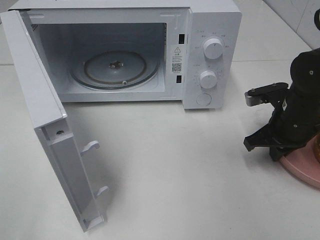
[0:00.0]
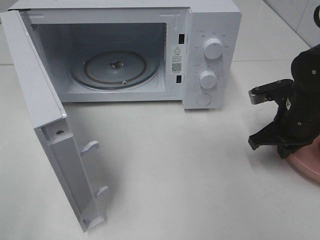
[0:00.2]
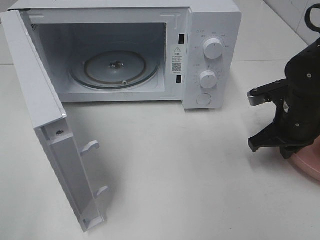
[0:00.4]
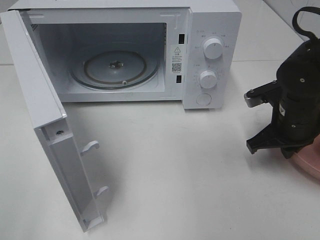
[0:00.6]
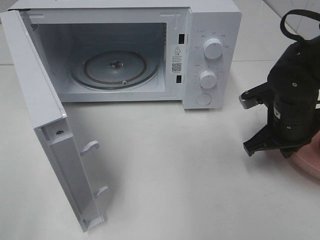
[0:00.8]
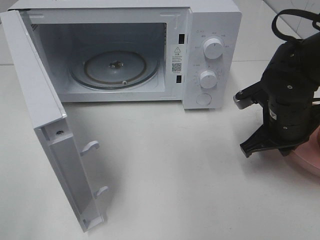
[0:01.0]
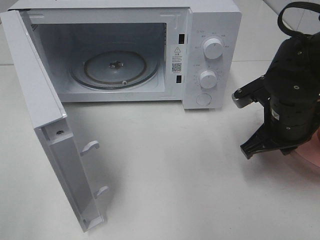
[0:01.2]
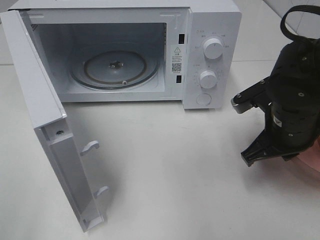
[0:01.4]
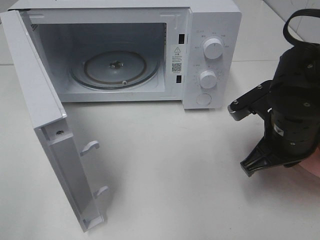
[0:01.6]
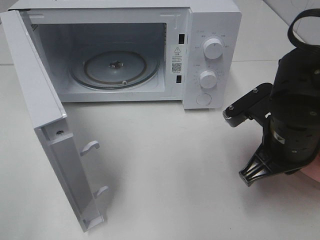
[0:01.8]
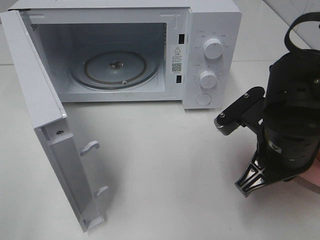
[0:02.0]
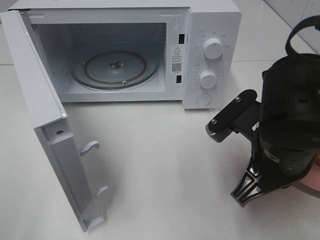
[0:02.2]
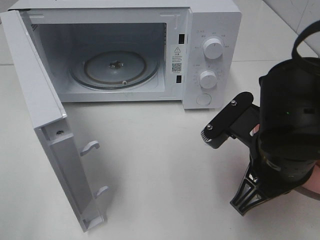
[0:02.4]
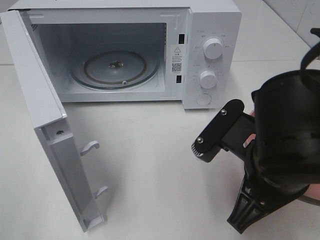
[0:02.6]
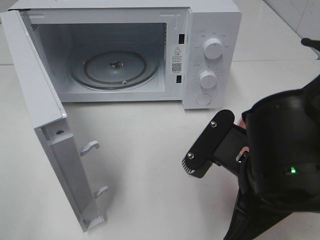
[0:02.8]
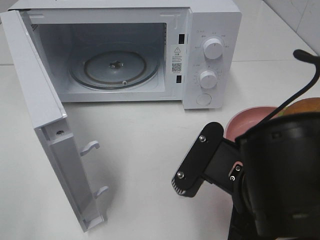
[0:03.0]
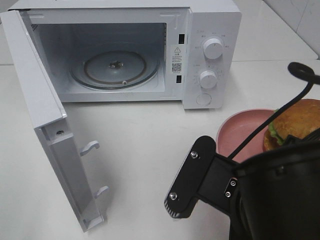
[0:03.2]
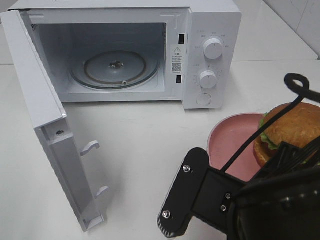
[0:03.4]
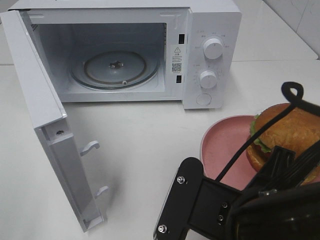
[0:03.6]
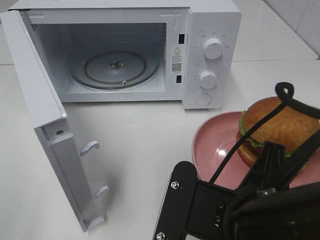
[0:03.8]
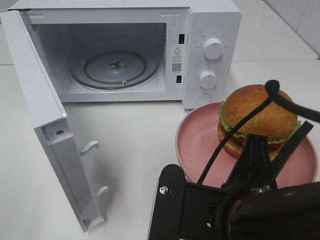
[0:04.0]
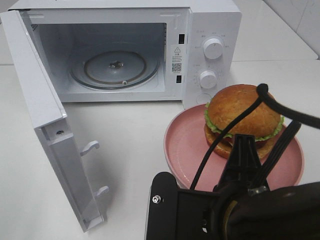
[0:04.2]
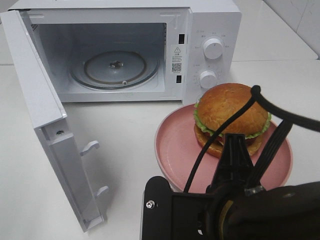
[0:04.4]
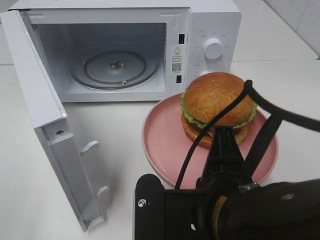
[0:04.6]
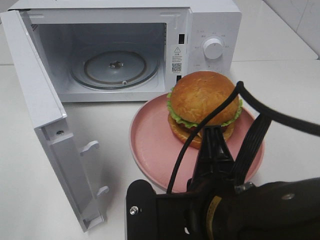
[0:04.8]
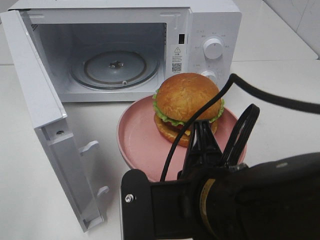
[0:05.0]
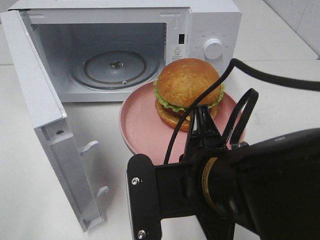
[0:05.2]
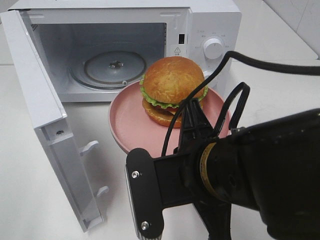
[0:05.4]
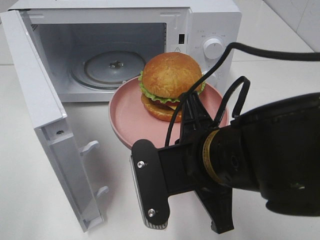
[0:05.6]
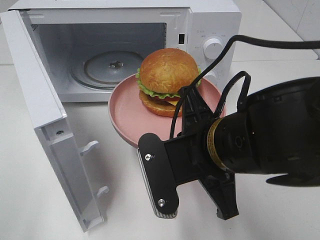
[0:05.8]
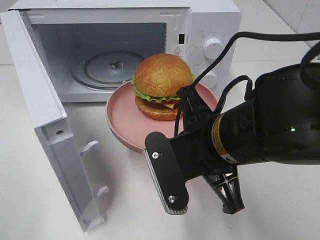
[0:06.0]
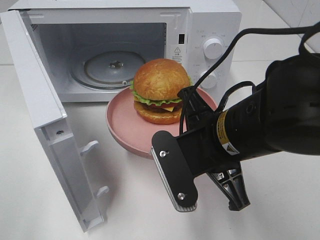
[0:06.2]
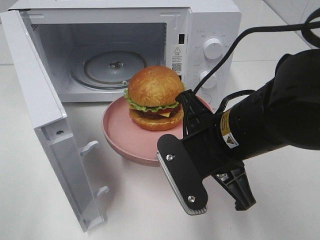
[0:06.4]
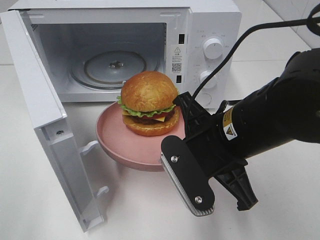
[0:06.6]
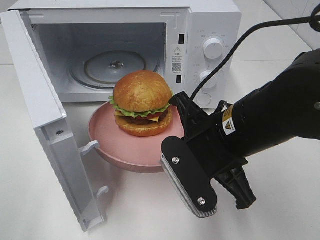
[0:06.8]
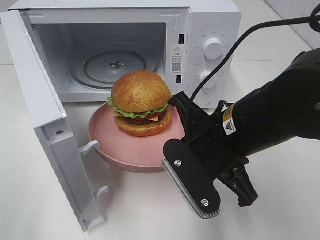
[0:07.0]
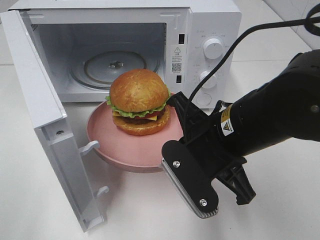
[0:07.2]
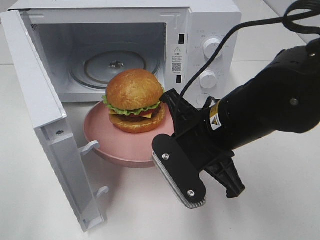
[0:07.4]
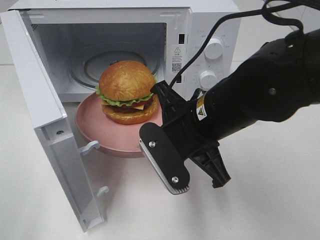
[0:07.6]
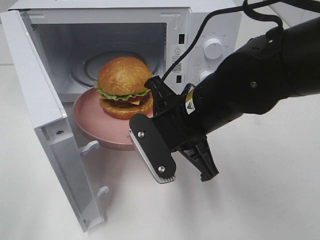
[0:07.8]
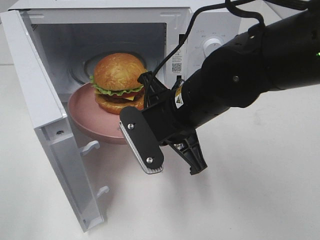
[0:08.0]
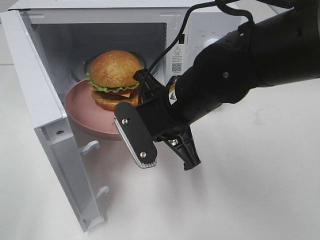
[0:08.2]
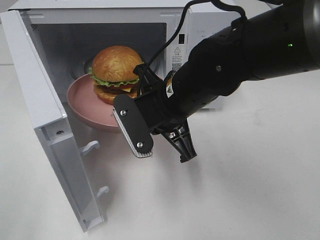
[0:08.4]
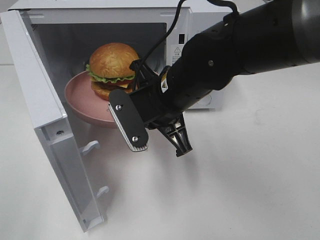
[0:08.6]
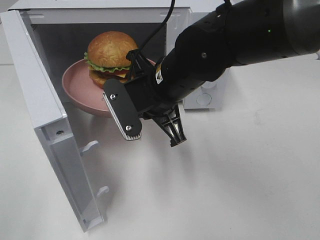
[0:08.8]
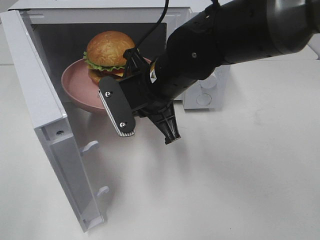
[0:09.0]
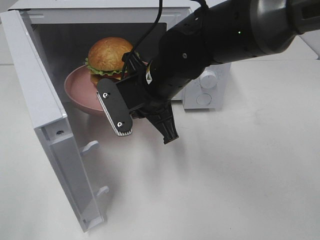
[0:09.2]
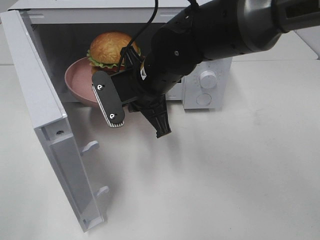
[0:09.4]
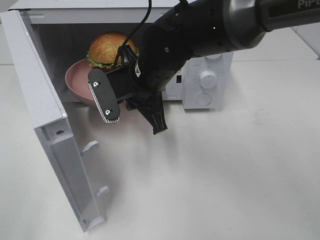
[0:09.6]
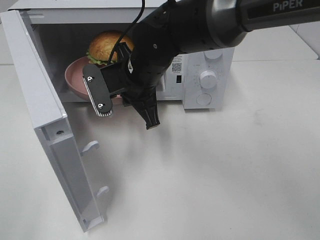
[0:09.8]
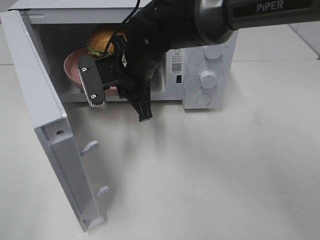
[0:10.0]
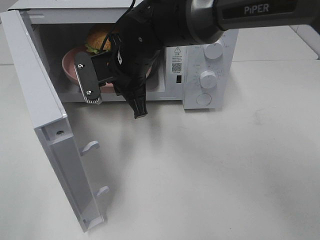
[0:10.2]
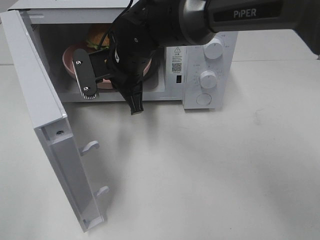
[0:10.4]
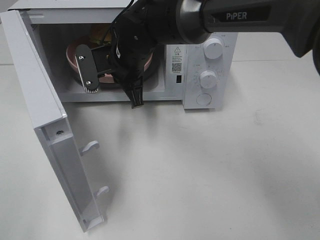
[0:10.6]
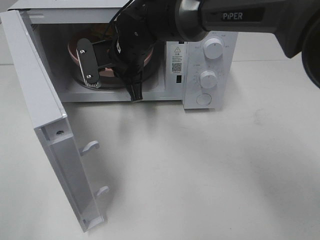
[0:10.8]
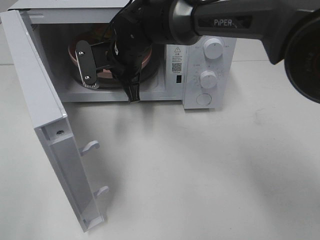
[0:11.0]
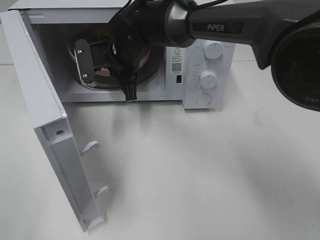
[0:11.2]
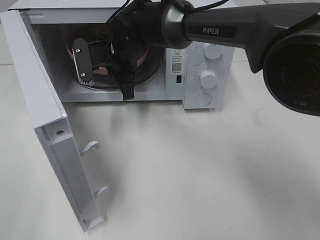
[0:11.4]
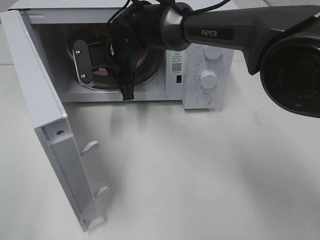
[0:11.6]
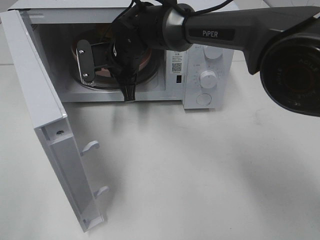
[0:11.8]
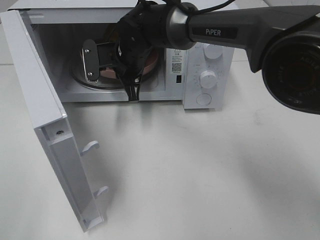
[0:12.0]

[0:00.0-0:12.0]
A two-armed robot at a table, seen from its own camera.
Task of the whole recording: Heat the burger.
0:00.0 to 0:01.6: The right gripper shifts approximately 10 cm backward and to the left.
0:01.6 to 0:03.0: The right gripper travels backward and to the left by some 15 cm.
0:04.4 to 0:06.0: The right gripper is displaced forward by roughly 10 cm.
0:07.6 to 0:09.0: The right gripper is displaced forward and to the left by about 10 cm.
0:09.0 to 0:10.4: The right gripper heads forward and to the left, covering roughly 10 cm.
0:10.4 to 0:12.0: The right gripper moves forward, roughly 5 cm.

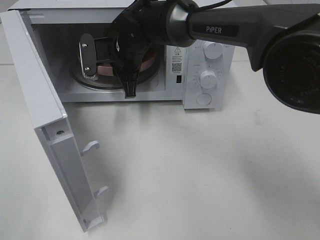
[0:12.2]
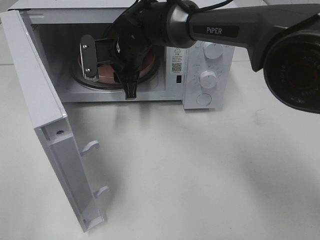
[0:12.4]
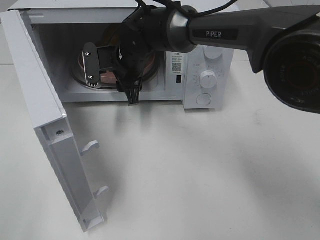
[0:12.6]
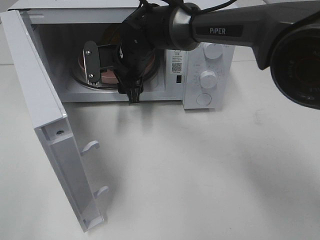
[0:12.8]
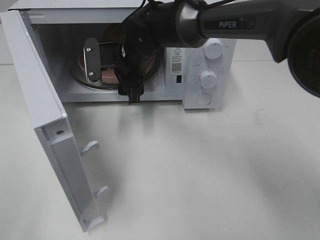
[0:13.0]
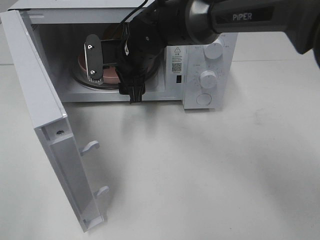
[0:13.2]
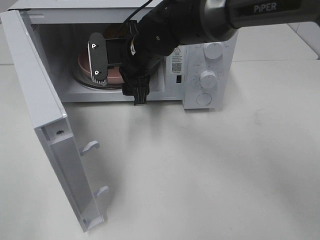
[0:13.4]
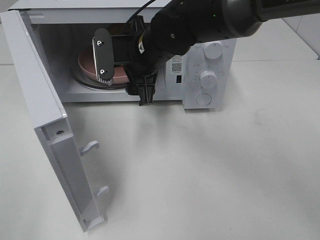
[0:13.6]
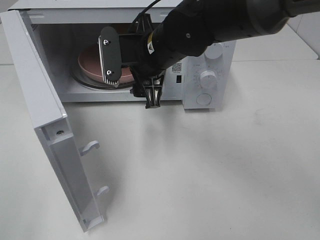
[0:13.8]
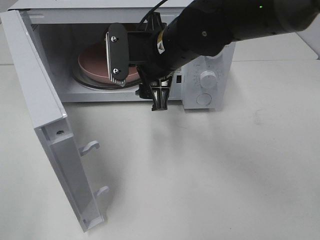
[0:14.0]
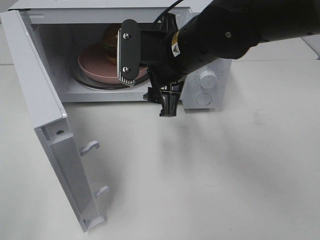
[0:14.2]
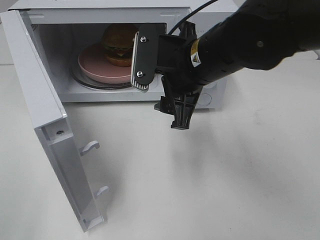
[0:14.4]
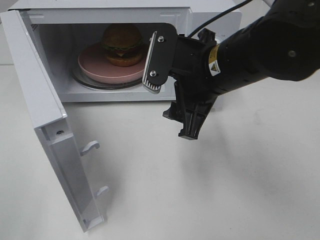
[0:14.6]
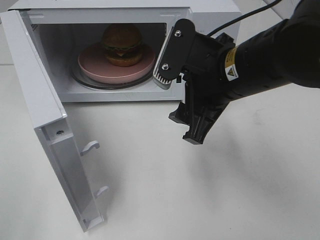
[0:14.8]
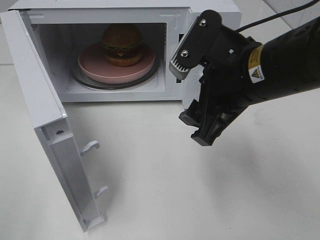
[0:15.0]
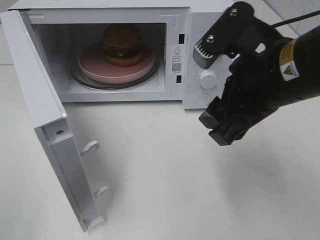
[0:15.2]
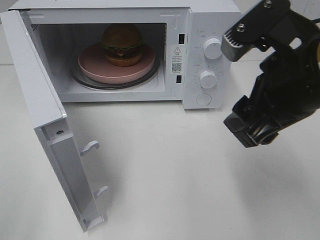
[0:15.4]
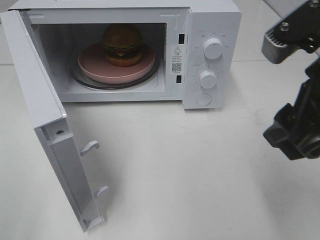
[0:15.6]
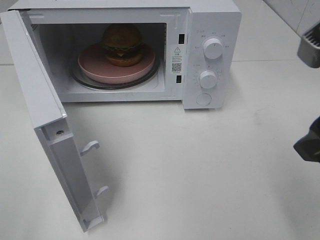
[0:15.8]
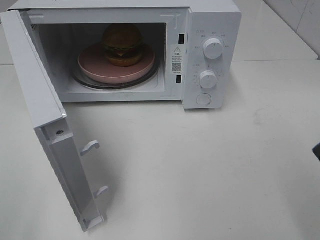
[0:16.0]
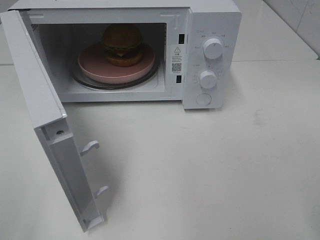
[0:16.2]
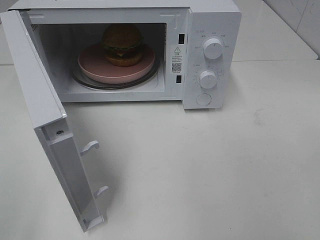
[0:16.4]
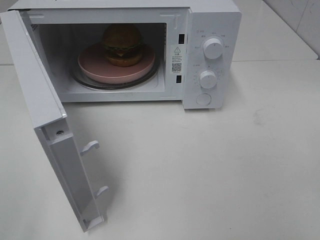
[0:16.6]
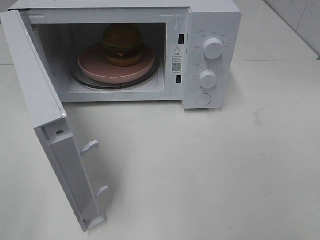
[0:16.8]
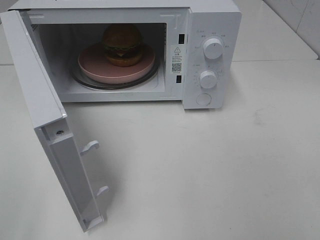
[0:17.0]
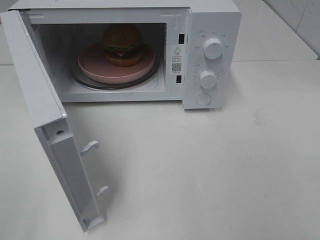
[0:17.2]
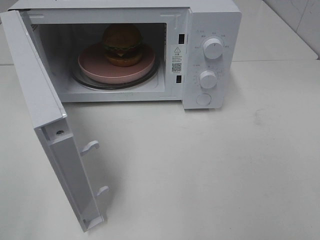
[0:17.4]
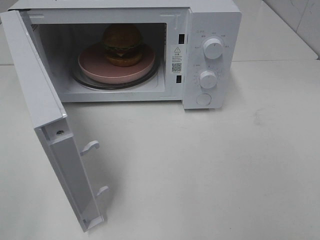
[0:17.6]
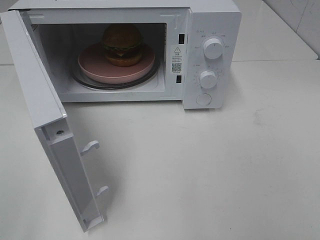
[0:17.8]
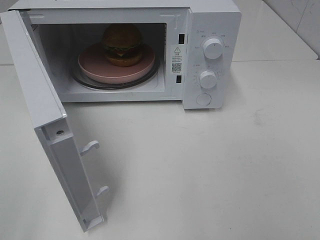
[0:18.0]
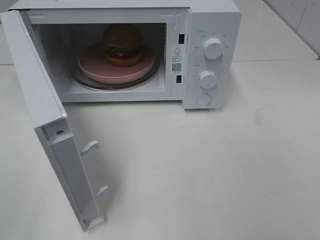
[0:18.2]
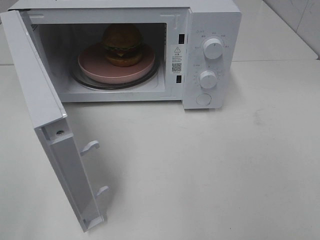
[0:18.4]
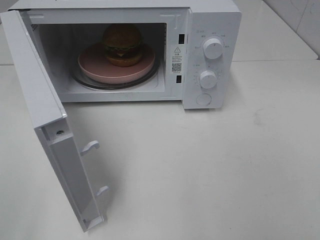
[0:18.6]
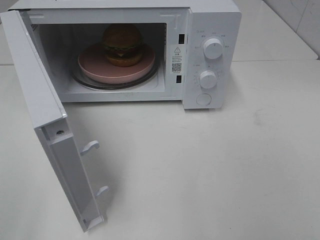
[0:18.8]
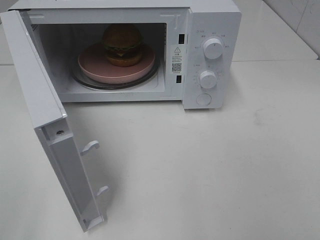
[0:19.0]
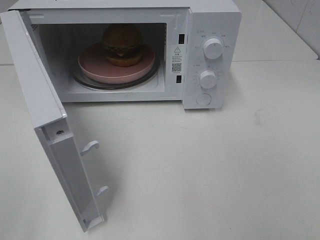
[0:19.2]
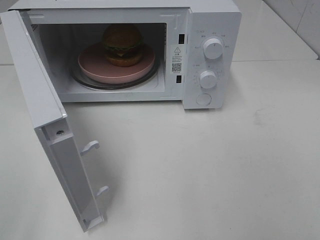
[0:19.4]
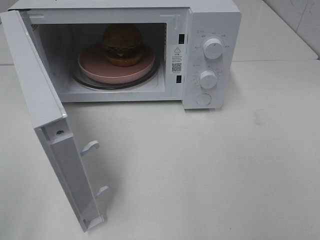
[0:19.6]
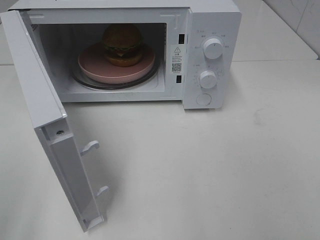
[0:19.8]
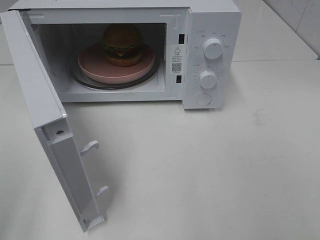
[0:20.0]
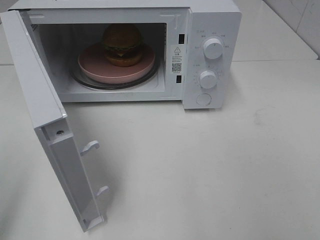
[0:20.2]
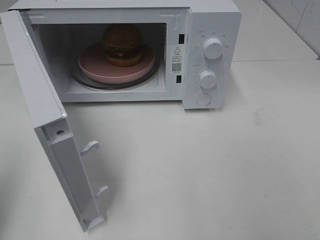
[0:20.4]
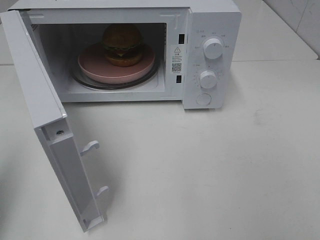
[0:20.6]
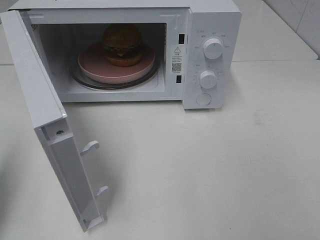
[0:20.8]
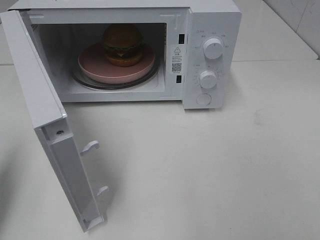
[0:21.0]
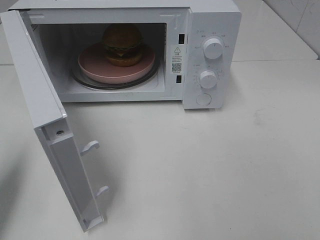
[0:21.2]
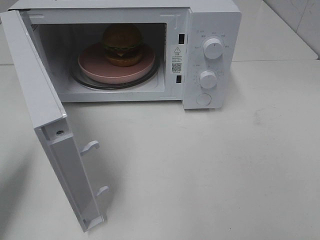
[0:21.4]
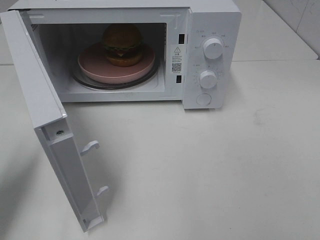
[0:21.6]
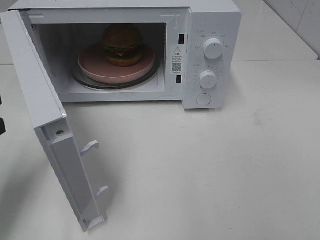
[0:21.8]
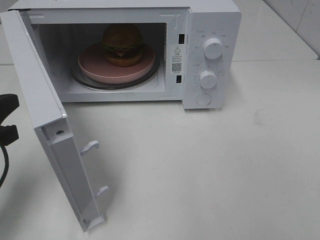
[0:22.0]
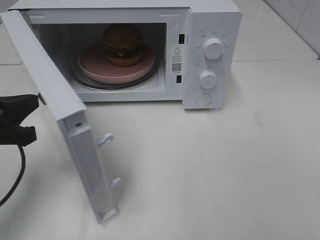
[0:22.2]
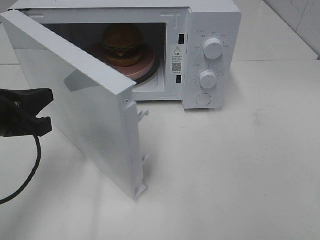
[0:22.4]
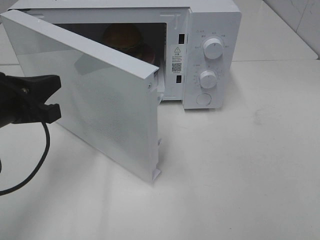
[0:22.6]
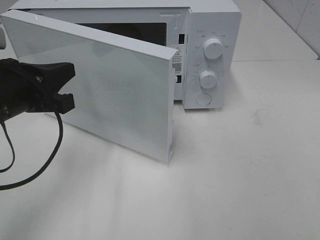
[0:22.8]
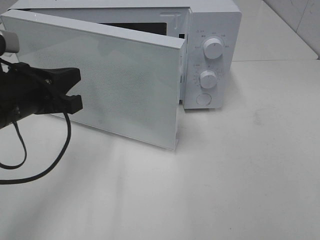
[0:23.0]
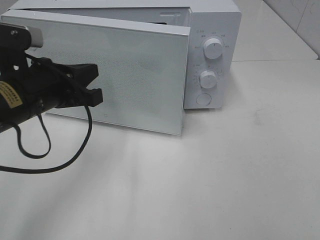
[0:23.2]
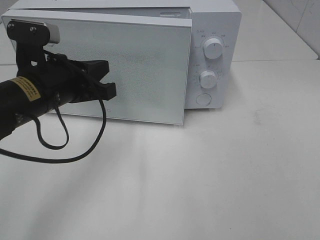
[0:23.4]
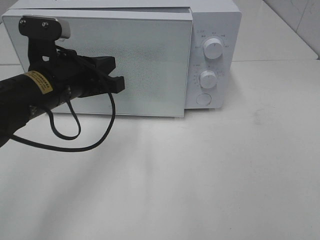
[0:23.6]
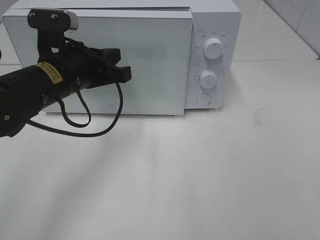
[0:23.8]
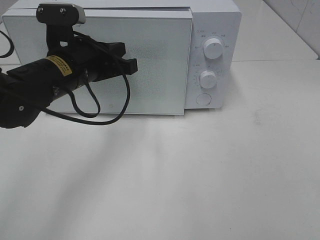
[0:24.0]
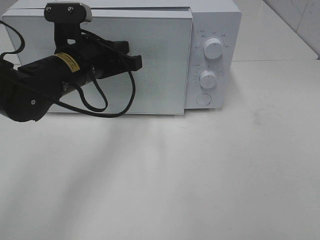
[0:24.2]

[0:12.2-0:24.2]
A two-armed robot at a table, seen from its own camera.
Task of the whole recording: Heat the burger.
0:12.2 to 0:13.8: The right gripper goes about 10 cm backward and to the right, and opens.
0:13.8 to 0:15.2: The right gripper goes about 20 cm backward and to the right.
0:15.2 to 0:16.6: The right gripper shifts some 20 cm backward and to the right.
0:19.8 to 0:21.2: The left gripper heads forward and downward, covering some 15 cm, and closes its fingers.
0:21.2 to 0:22.6: The left gripper travels to the right and forward by about 10 cm.
0:22.6 to 0:24.2: The left gripper heads to the right and forward, covering some 15 cm.
